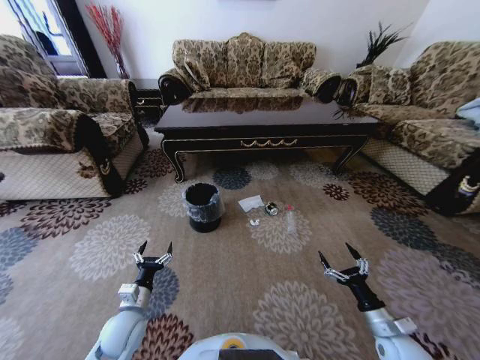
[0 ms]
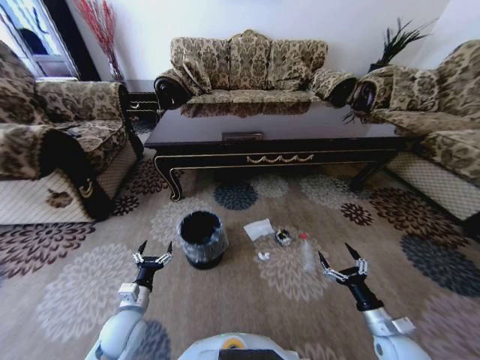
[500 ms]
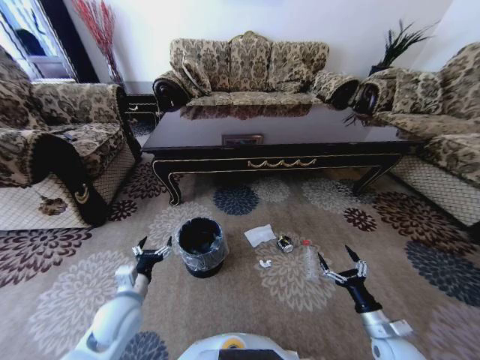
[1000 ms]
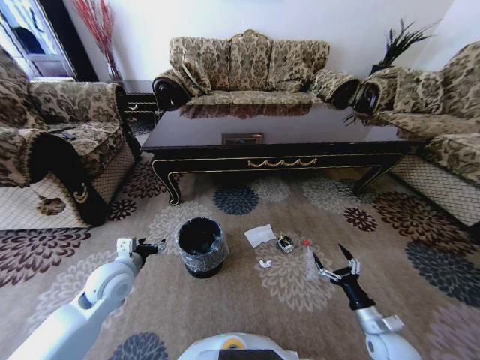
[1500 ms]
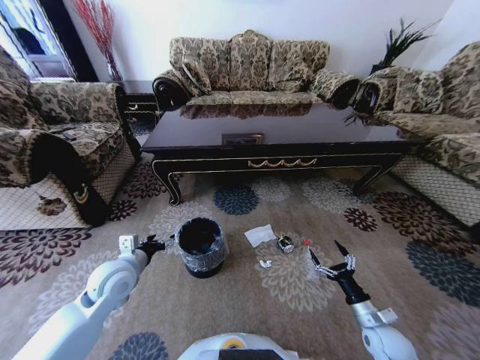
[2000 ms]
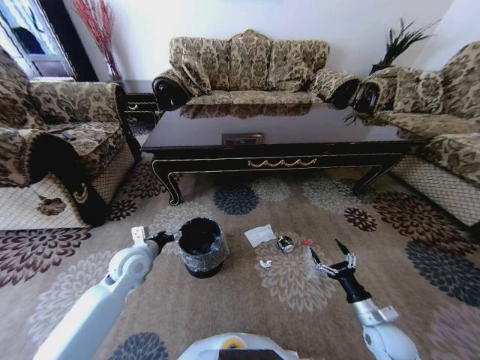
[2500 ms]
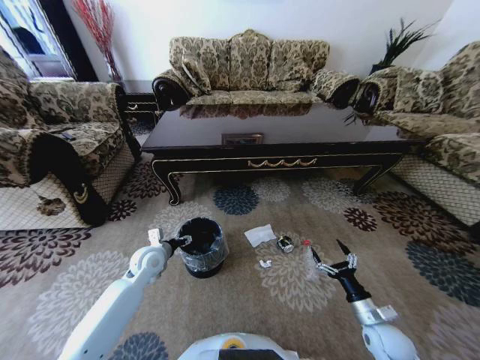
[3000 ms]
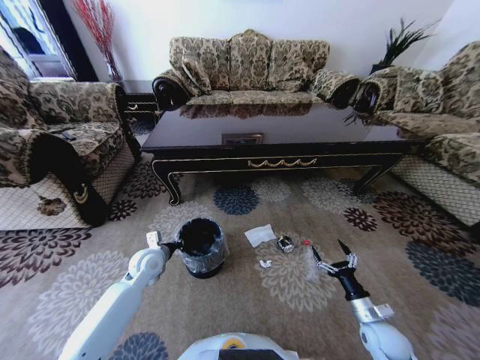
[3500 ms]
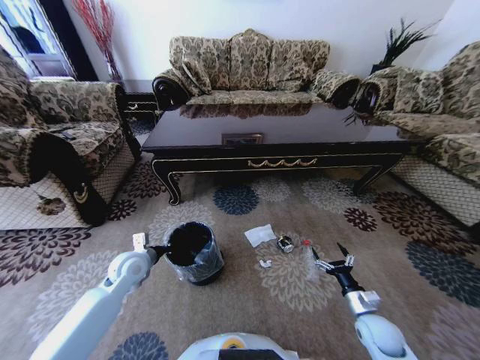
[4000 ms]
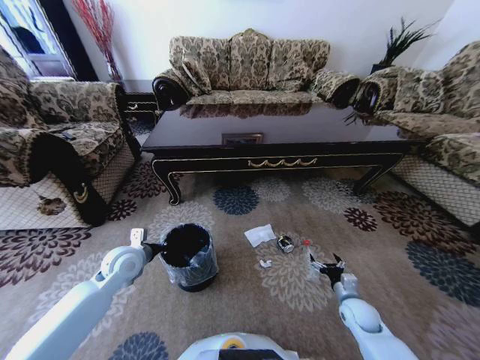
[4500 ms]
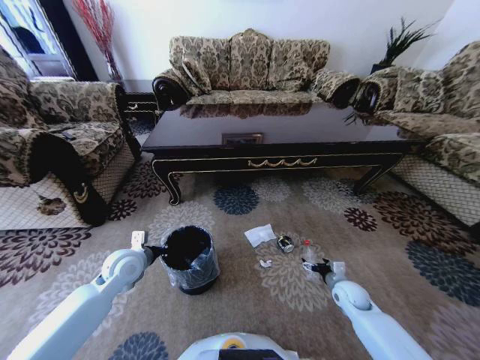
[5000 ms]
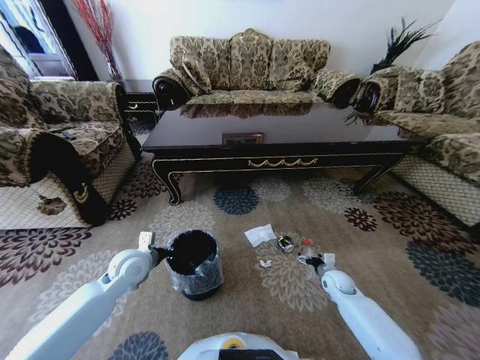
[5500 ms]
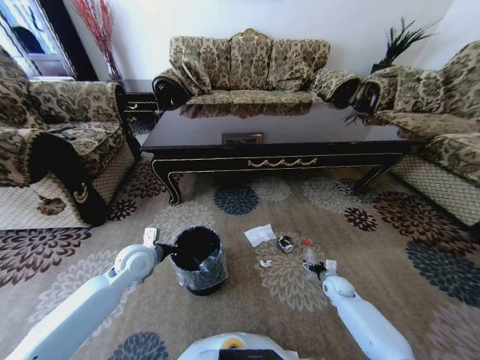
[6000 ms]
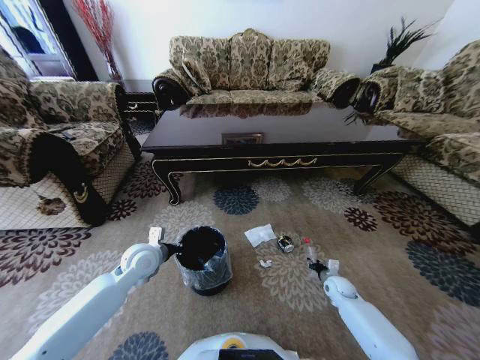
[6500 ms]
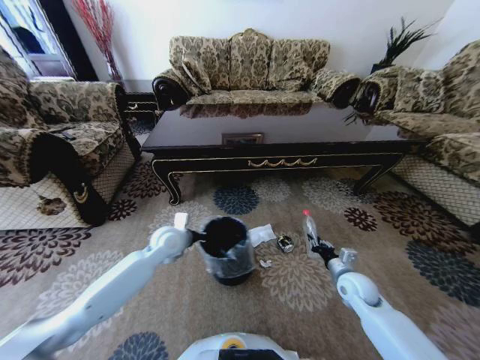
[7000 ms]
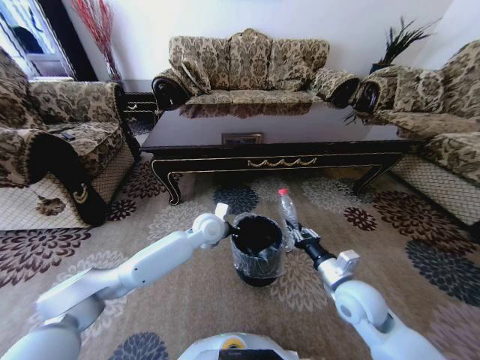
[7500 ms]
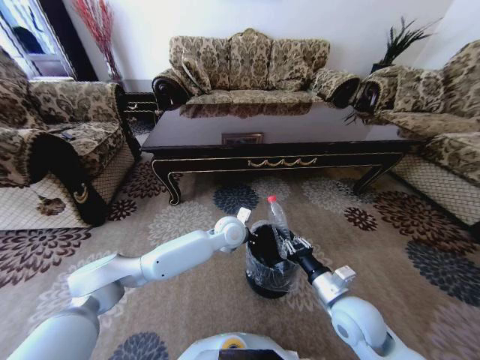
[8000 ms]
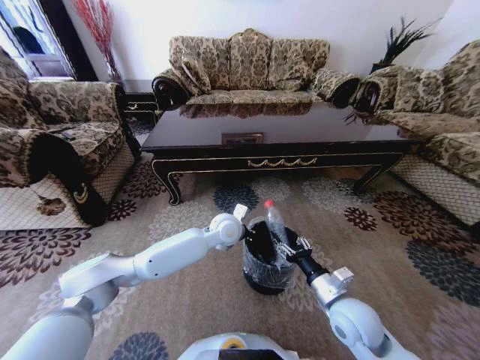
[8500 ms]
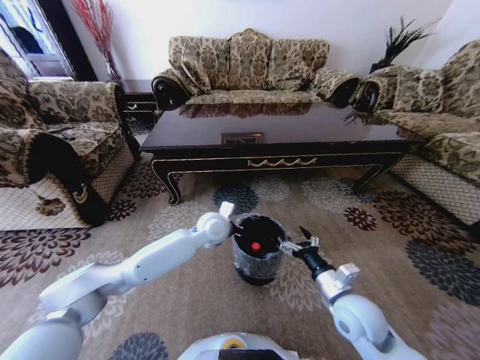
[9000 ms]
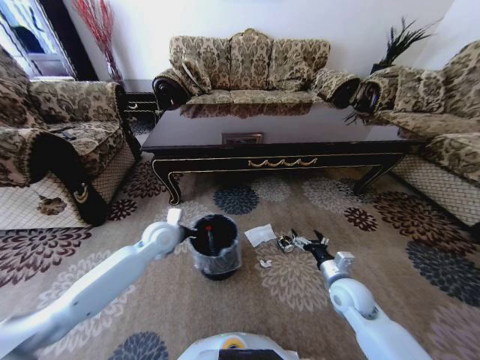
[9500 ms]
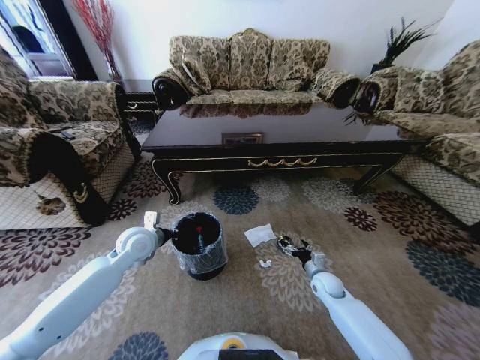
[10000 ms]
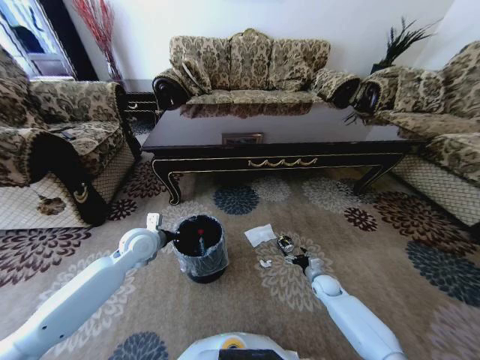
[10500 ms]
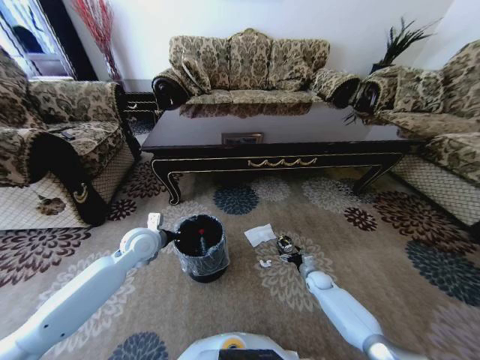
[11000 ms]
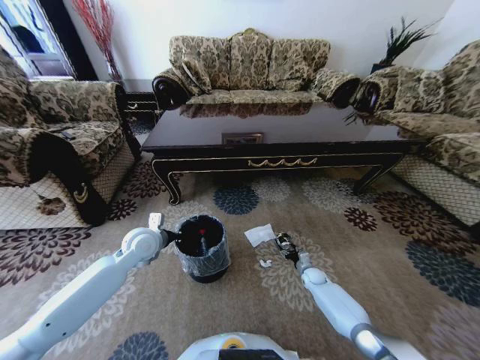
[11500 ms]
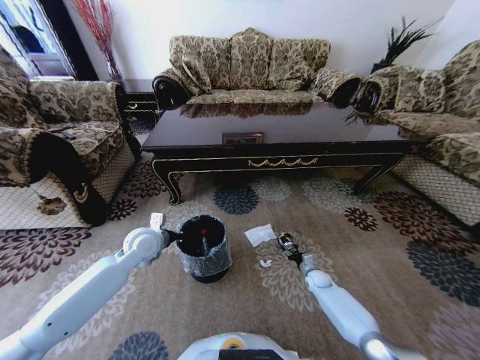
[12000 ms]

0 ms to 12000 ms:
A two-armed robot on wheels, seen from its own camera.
Task of the whole recording: Move to the front of the table and pick up the trash from the floor, then place it into the trash bin.
0 ms to 2000 ms: The left gripper goes roughly 15 cm upward and forward.
2000 ms to 4000 ms: The left gripper heads downward and forward, covering approximately 10 cm, and closes up.
4000 ms to 6000 ms: The right gripper travels forward and downward by about 15 cm.
6000 ms to 8000 ms: The right gripper moves upward, to the left and backward, roughly 30 cm, and closes its fingers; the left gripper goes about 25 cm to the right.
8000 ms to 10000 ms: The left gripper goes roughly 25 cm to the left. Meanwhile the right gripper travels downward, forward and to the right by about 25 cm, and opens up.
10000 ms to 12000 ms: The right gripper moves downward, approximately 10 cm, and closes.

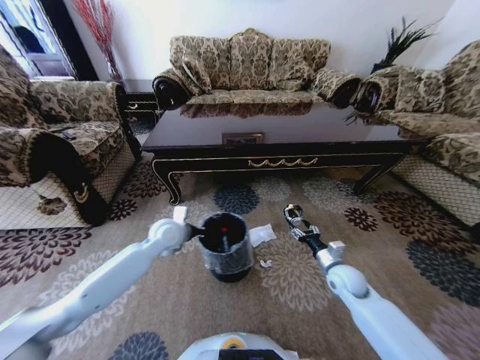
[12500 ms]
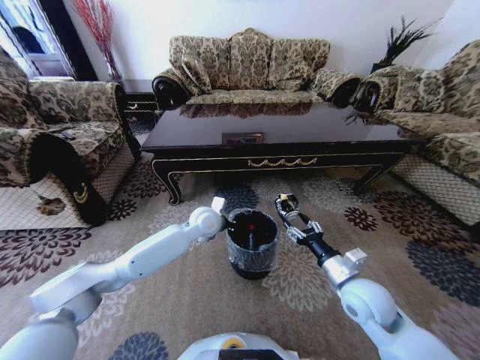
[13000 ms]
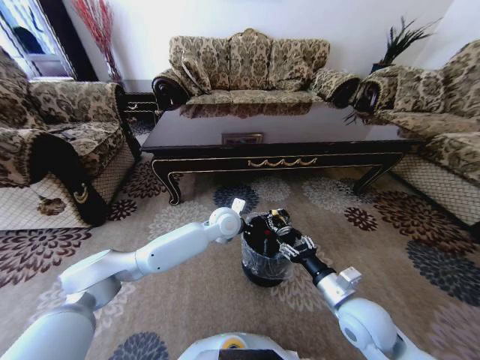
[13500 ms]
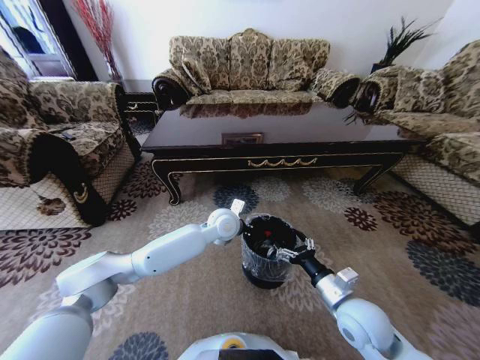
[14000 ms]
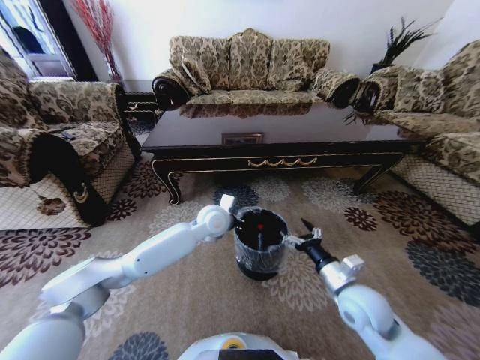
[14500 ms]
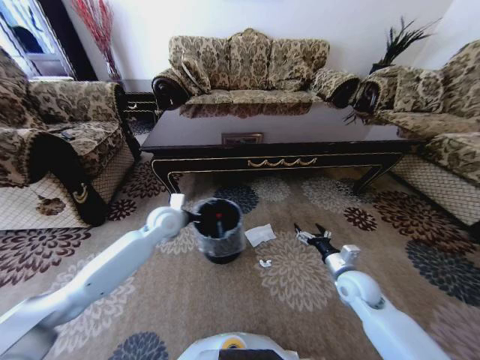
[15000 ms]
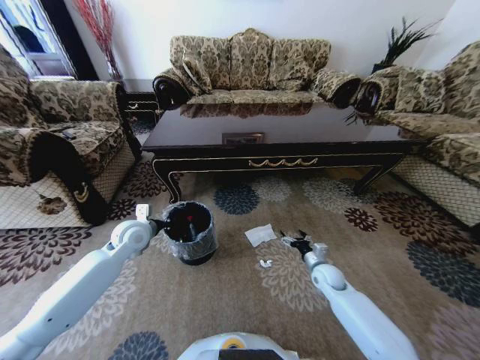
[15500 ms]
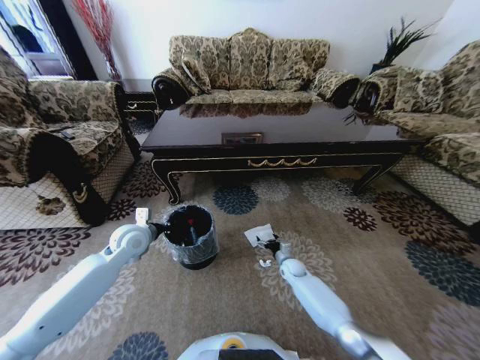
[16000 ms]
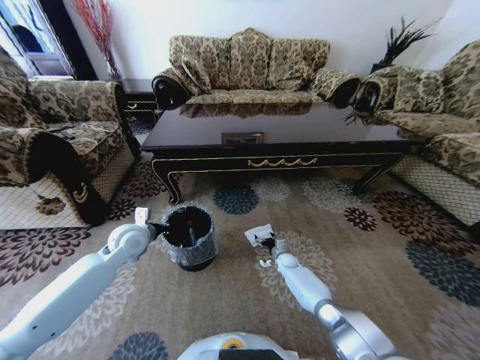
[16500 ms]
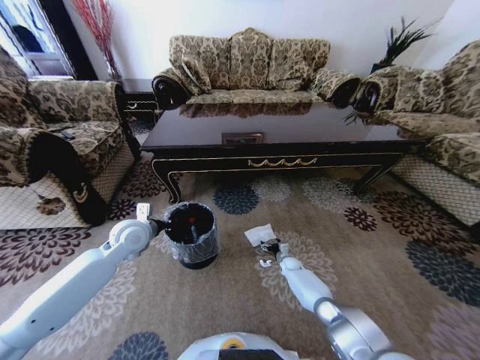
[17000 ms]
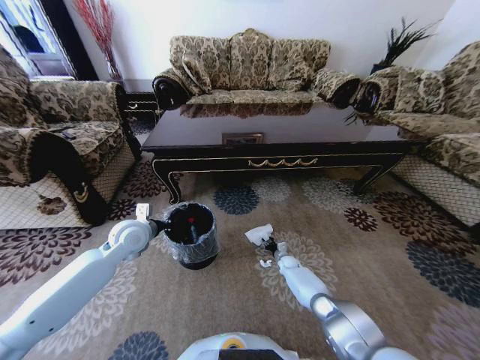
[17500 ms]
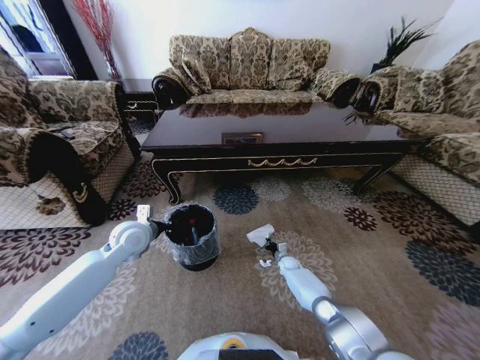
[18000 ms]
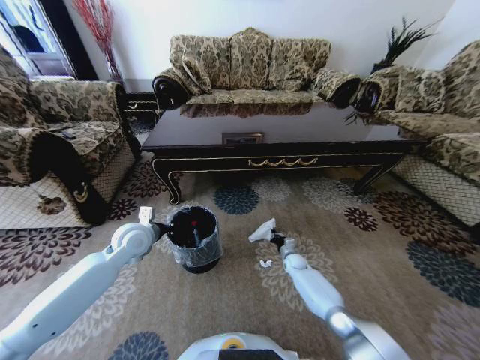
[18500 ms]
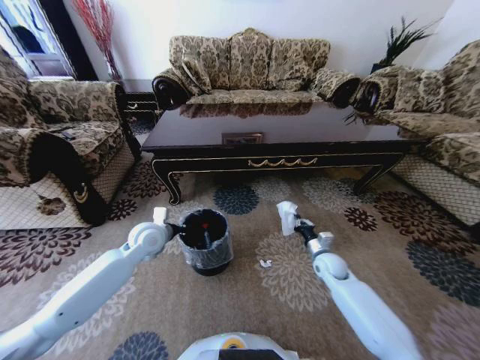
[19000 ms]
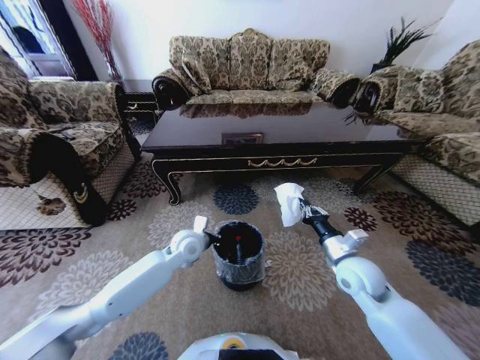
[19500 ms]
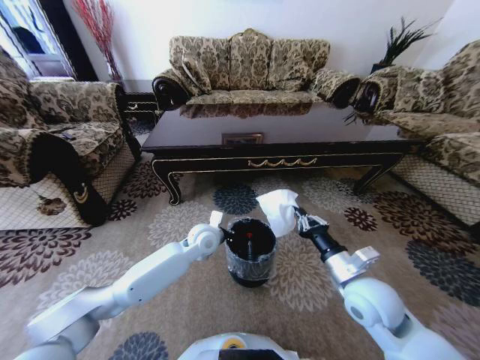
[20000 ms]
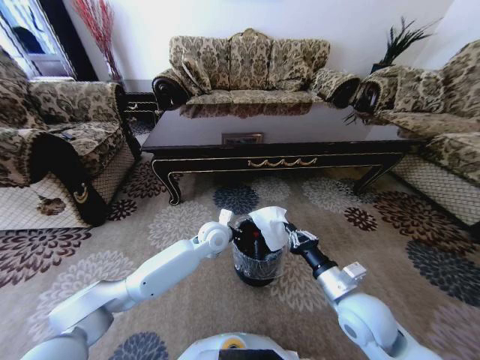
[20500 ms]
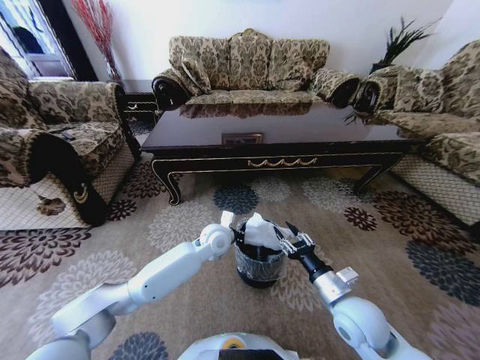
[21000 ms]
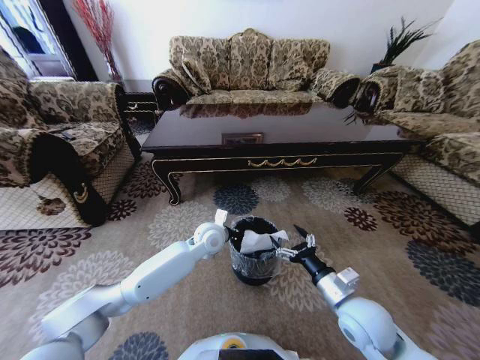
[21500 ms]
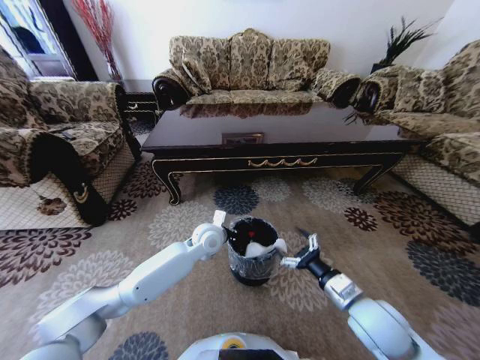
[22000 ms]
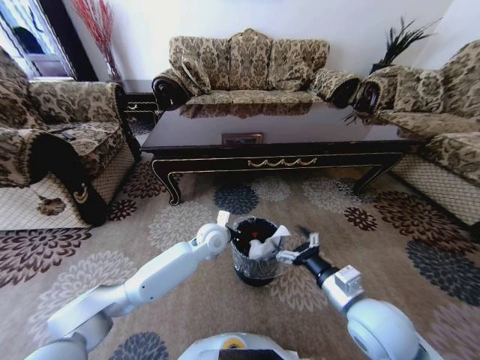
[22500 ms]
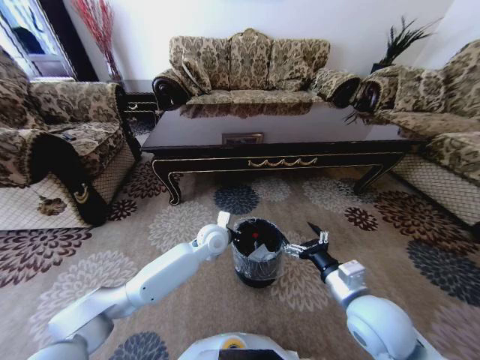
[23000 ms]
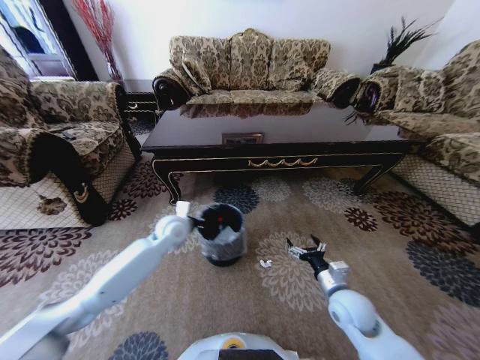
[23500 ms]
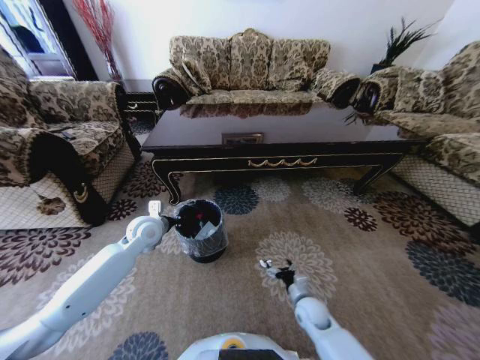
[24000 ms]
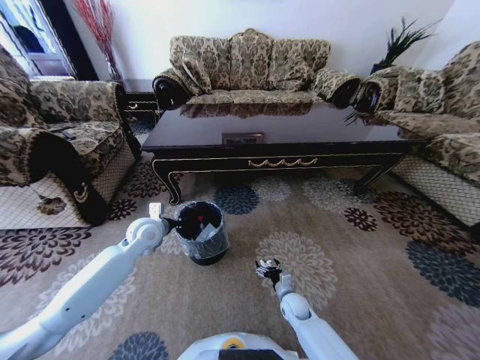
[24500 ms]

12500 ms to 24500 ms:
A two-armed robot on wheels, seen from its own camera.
Task of the whole recording: Move to the front of the table and pick up the trash from the floor, then place it into the trash bin.
12500 ms to 14500 ms: The left gripper moves to the right, approximately 15 cm, while the right gripper shifts roughly 15 cm backward, upward and to the left, and opens its fingers.
14500 ms to 16500 ms: The left gripper heads to the left, covering some 25 cm. Meanwhile the right gripper is displaced downward and forward by approximately 35 cm.
16500 ms to 18500 ms: The right gripper closes.
18500 ms to 20500 ms: The left gripper travels to the right by roughly 20 cm, while the right gripper travels upward and backward by approximately 40 cm.
20500 ms to 22500 ms: The right gripper opens.
22500 ms to 24500 ms: The right gripper heads downward, covering some 30 cm; the left gripper heads to the left, covering about 20 cm.

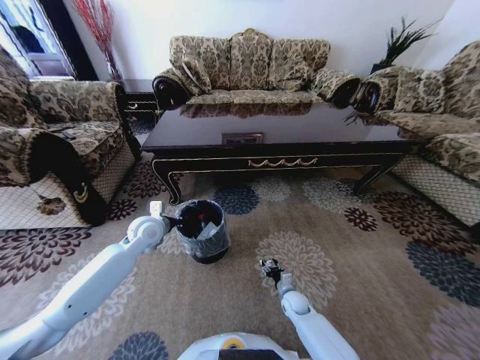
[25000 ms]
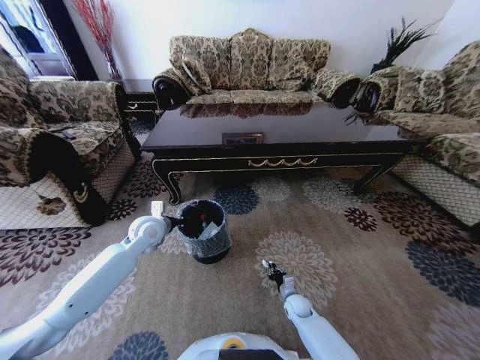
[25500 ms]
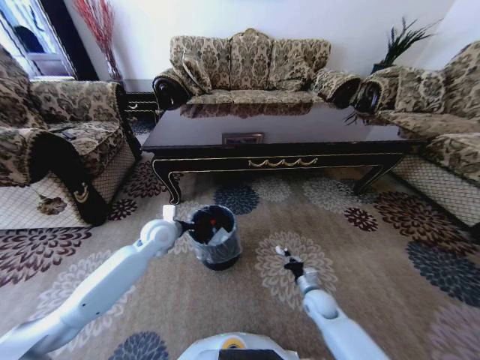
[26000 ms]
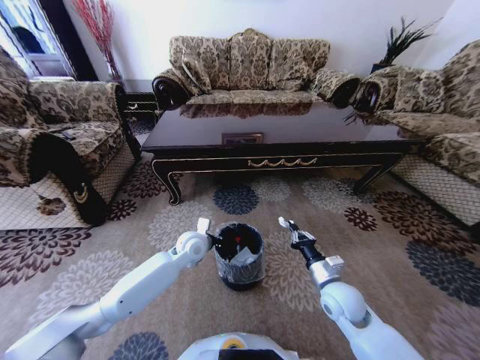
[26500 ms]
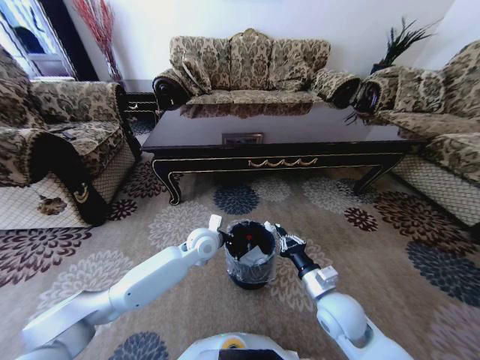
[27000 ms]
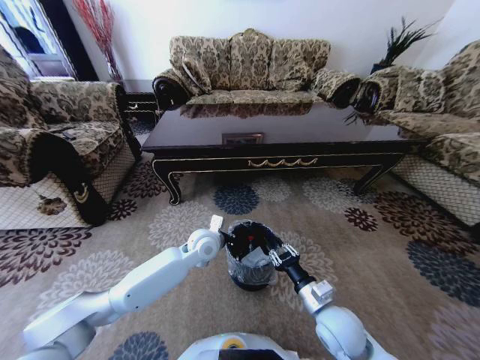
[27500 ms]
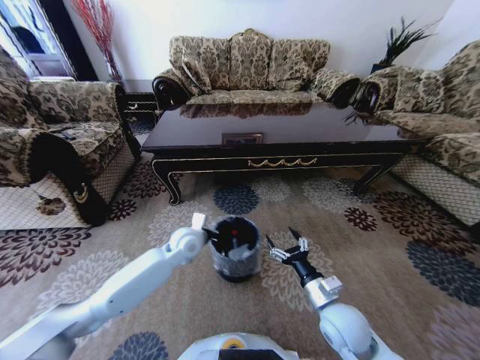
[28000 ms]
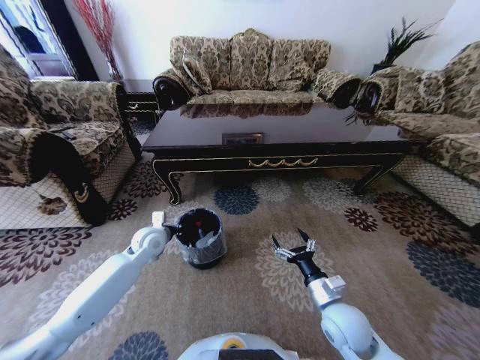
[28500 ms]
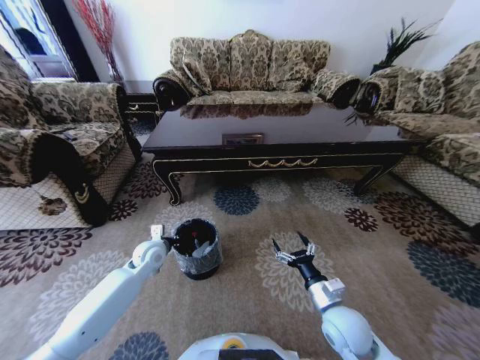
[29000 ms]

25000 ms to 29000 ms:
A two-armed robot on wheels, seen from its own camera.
Task of the whole recording: Move to the front of the table and pick up the trash from the floor, then place it into the trash bin.
25000 ms to 27000 ms: The right gripper shifts some 25 cm upward, and closes its fingers; the left gripper shifts about 15 cm to the right.
27000 ms to 29000 ms: The right gripper opens up, while the left gripper shifts approximately 20 cm to the left.
